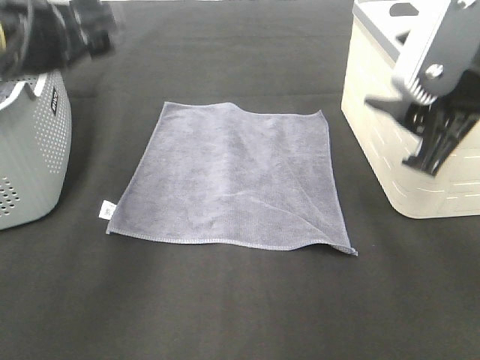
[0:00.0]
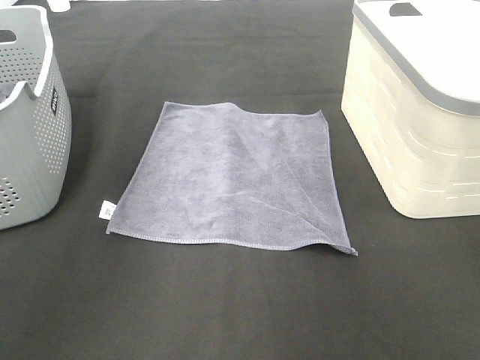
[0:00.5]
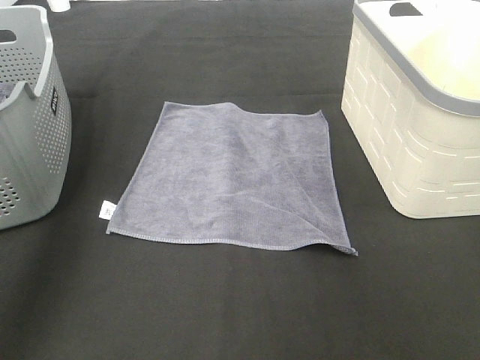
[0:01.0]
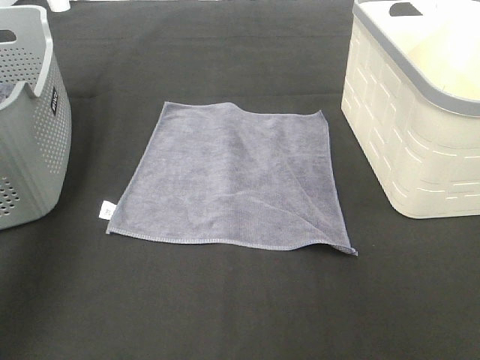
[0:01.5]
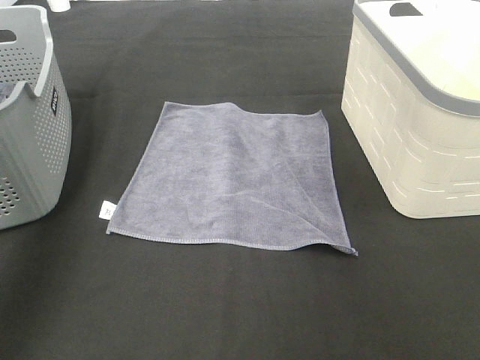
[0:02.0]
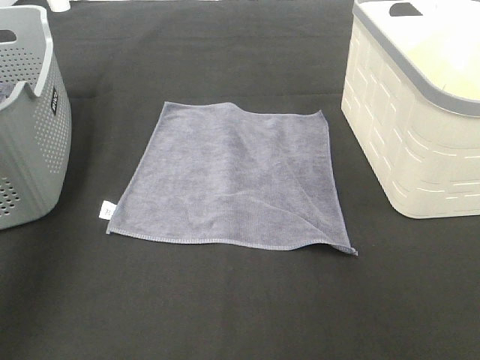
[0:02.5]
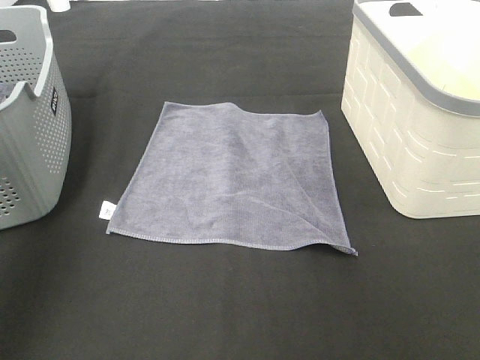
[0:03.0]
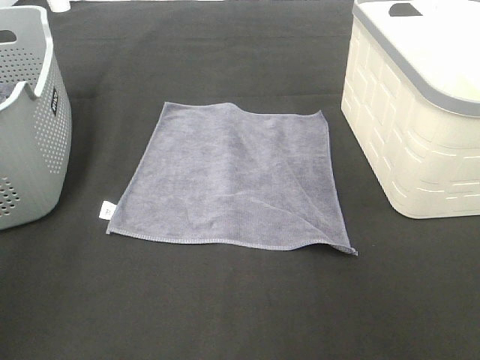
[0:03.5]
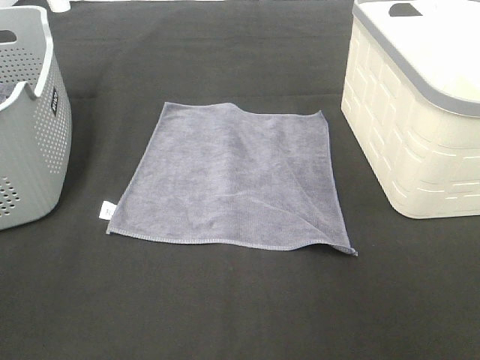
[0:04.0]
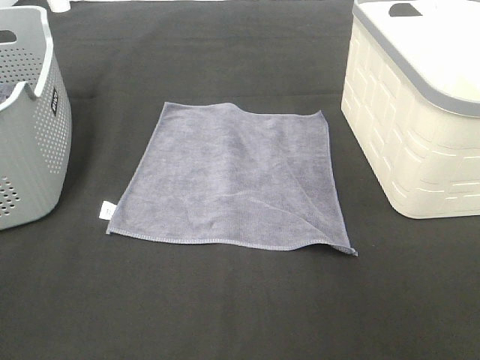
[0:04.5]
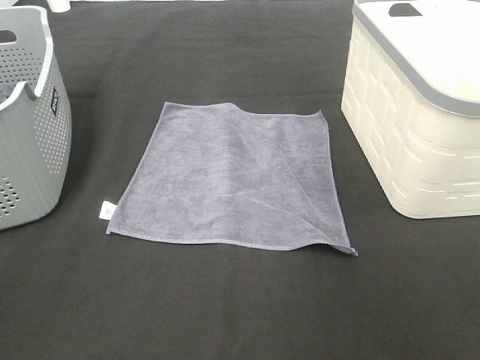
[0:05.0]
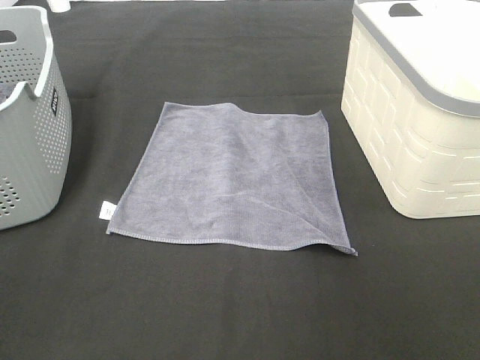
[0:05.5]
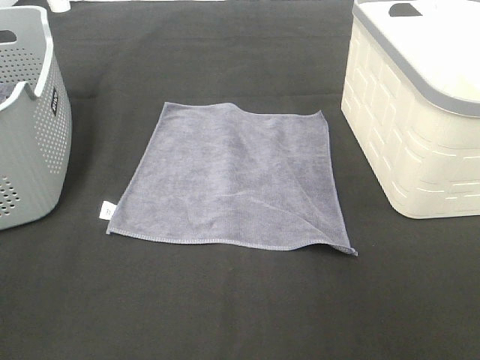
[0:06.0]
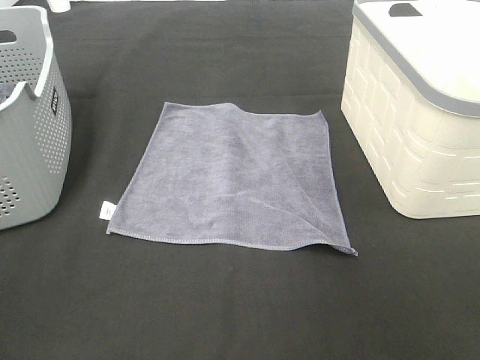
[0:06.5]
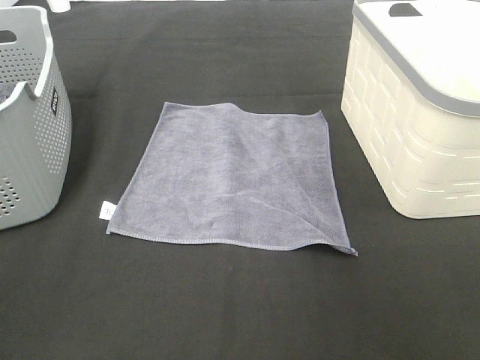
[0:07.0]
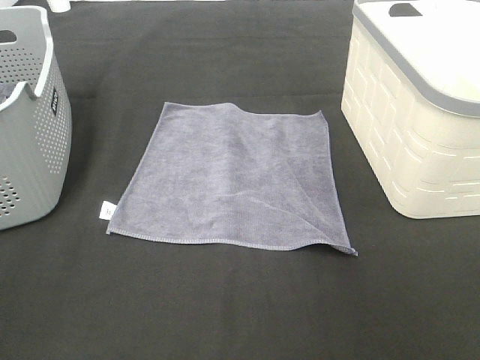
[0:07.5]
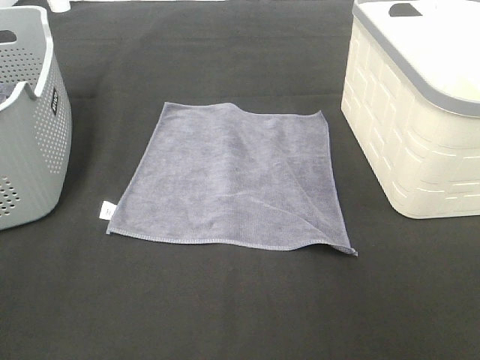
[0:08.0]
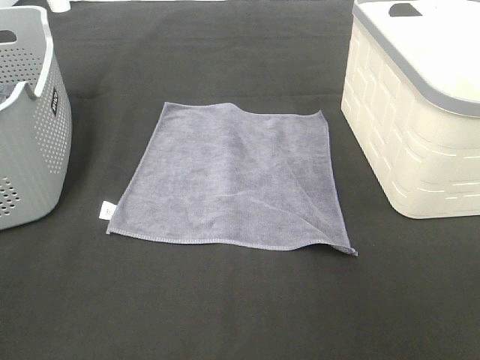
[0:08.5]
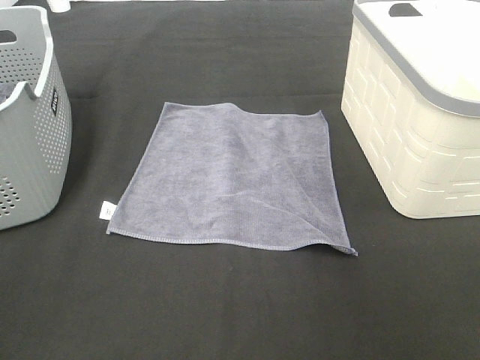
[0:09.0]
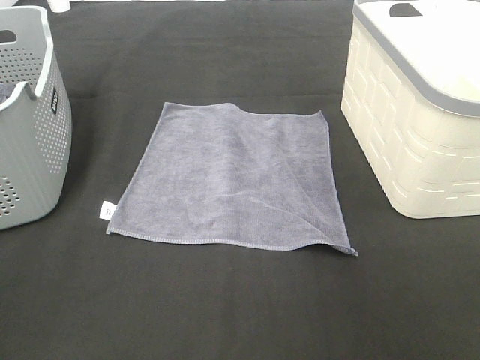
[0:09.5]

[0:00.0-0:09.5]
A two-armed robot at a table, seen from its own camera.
Task of the whole recording: Remove the towel and place it.
0:00.0 to 0:02.0: The left gripper shifts approximately 20 cm upward and to the left. The right gripper moves upward and forward, roughly 15 cm.
0:02.0 to 0:04.0: The left gripper shifts about 30 cm backward; the right gripper moves backward, to the right and downward, about 30 cm.
0:07.5 to 0:09.5: Both grippers stay put.

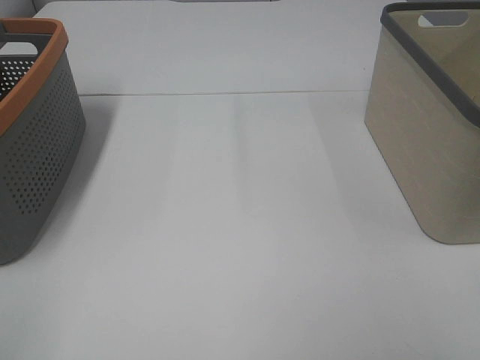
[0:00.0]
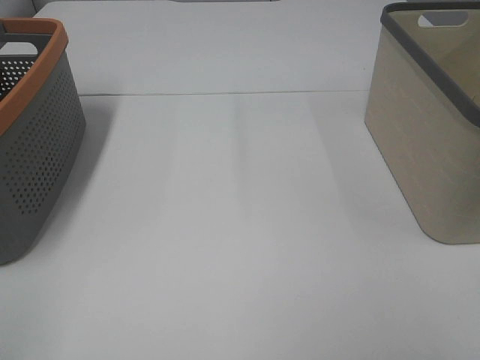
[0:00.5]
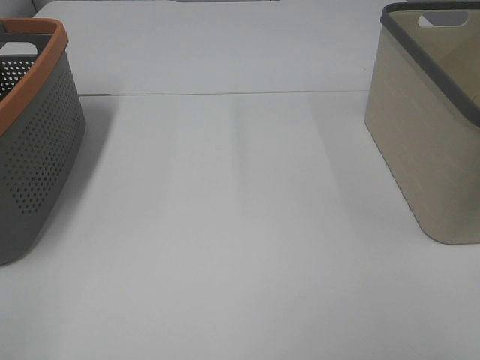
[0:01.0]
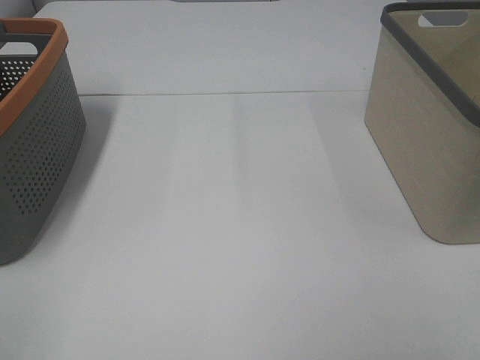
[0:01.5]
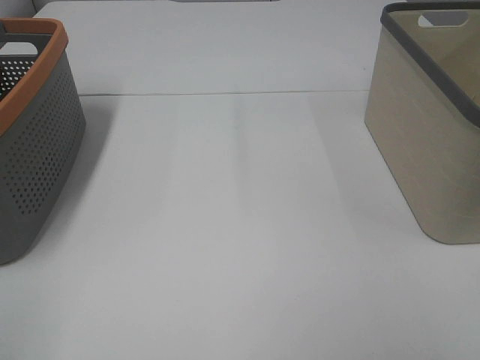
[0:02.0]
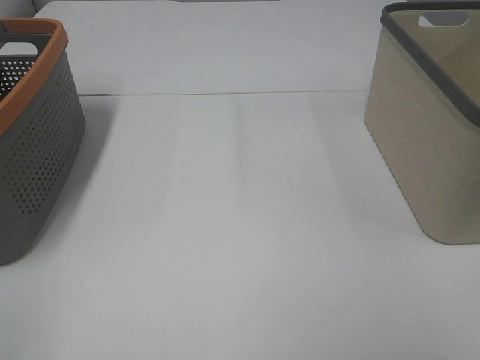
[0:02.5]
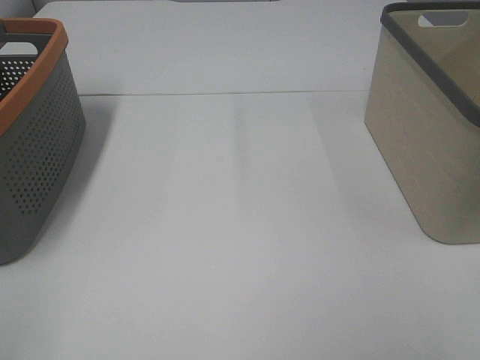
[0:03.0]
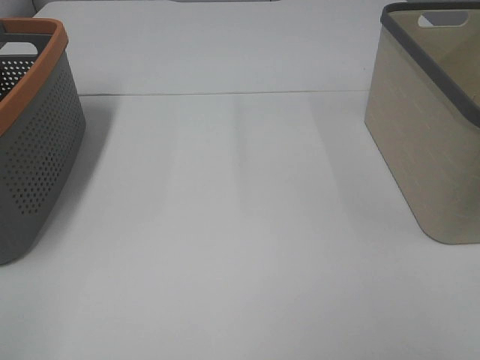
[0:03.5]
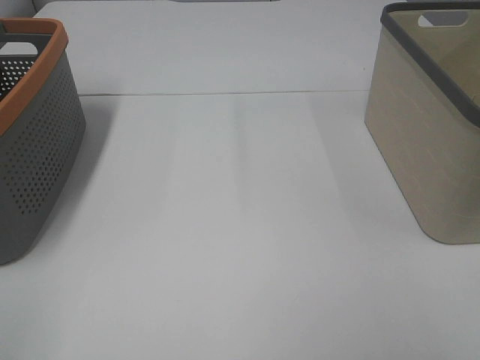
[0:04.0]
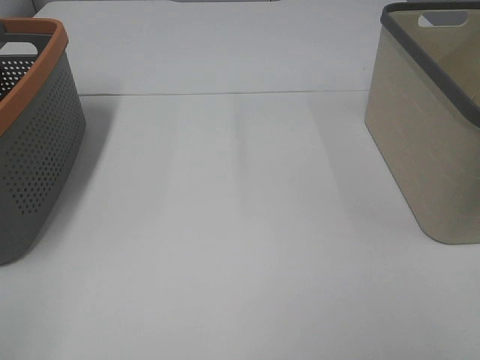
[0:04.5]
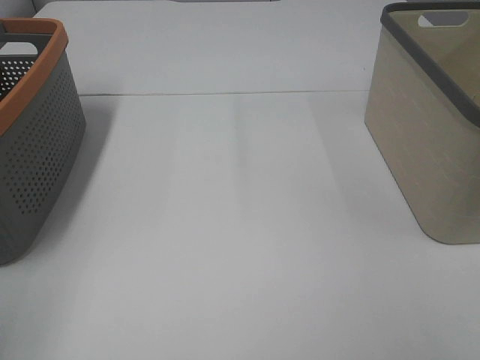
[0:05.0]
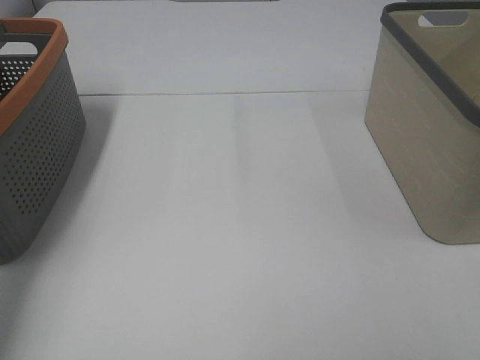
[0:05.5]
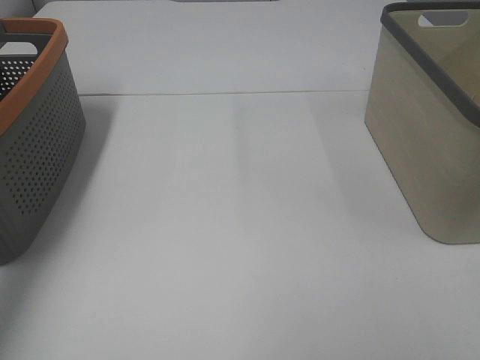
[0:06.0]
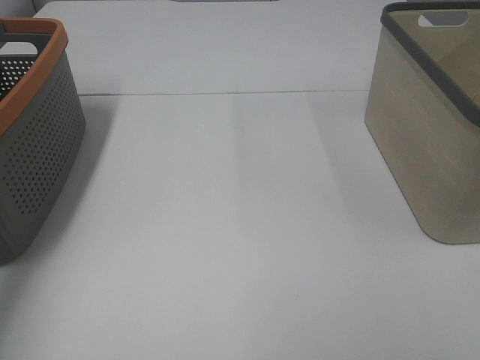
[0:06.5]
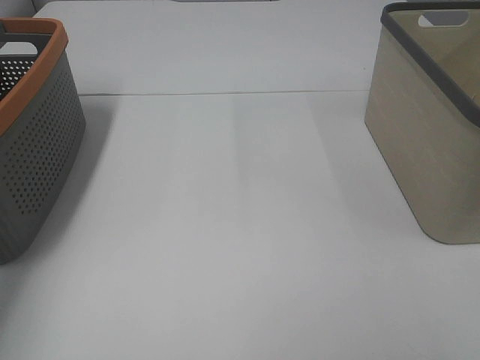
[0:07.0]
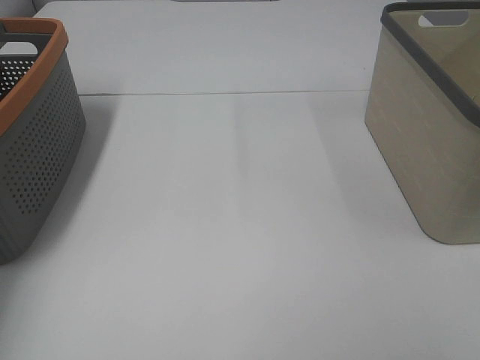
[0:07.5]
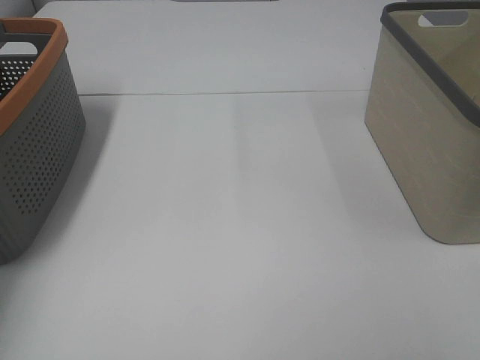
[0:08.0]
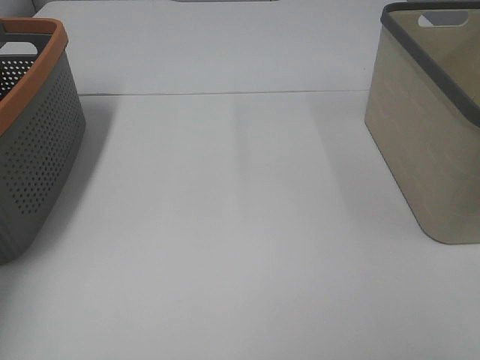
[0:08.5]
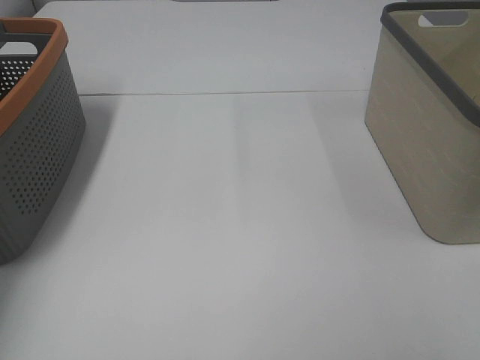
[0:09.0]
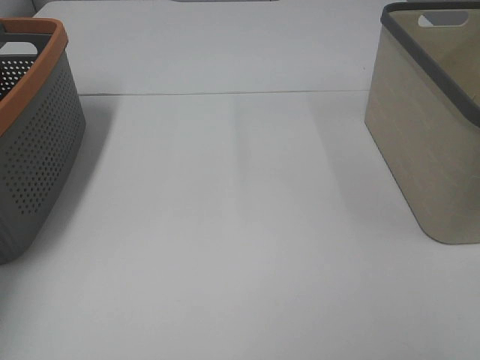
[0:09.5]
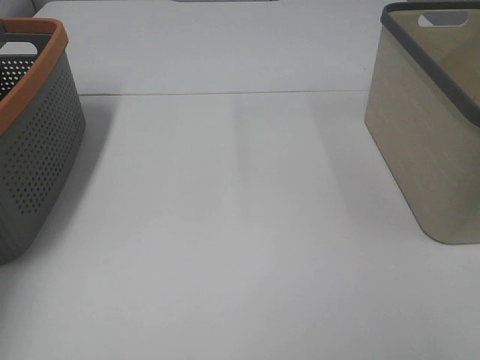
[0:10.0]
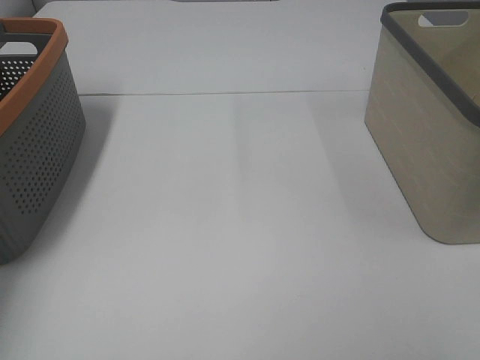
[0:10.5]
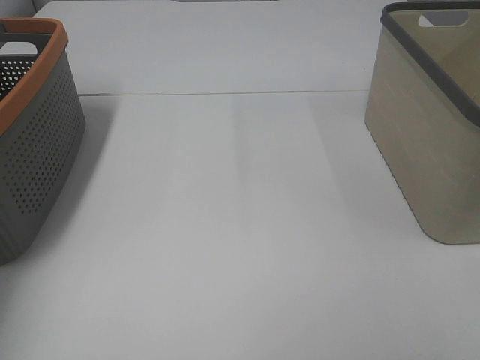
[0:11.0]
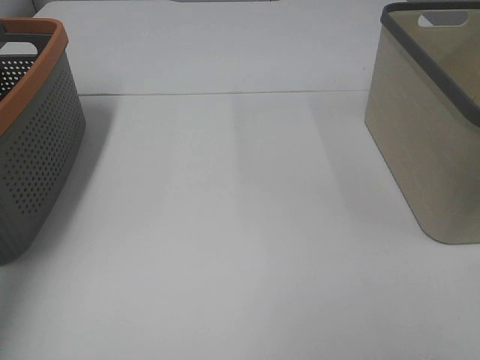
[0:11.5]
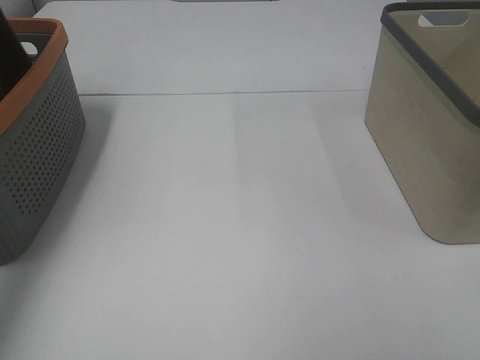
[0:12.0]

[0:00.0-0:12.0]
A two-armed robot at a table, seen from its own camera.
Task of the whole recording: Remove the towel and place it.
0:00.0 to 0:04.0: Both grippers stay put.
0:04.0 to 0:06.0: The left gripper heads forward, covering about 35 cm.
0:06.0 to 0:08.0: The left gripper heads downward, forward and to the left, covering some 15 cm.
0:10.0 to 0:12.0: The left gripper travels upward by about 25 cm, and closes up.

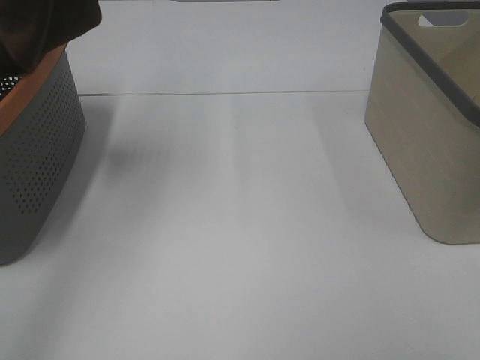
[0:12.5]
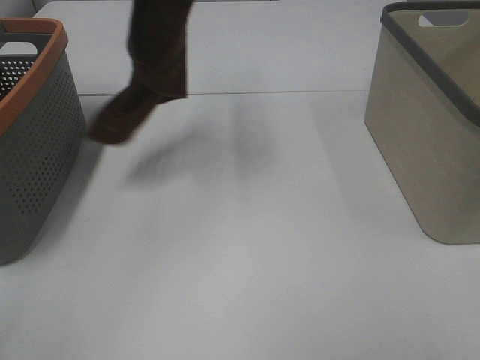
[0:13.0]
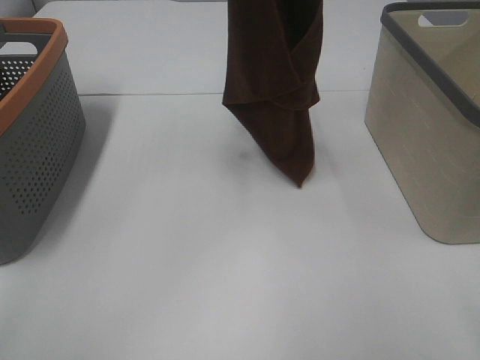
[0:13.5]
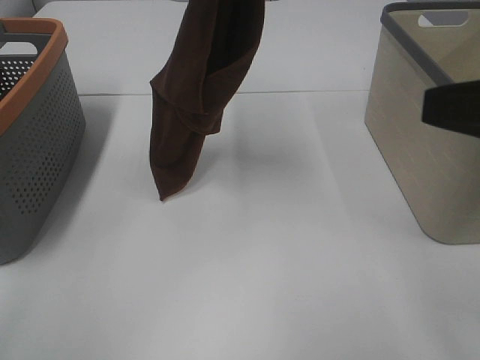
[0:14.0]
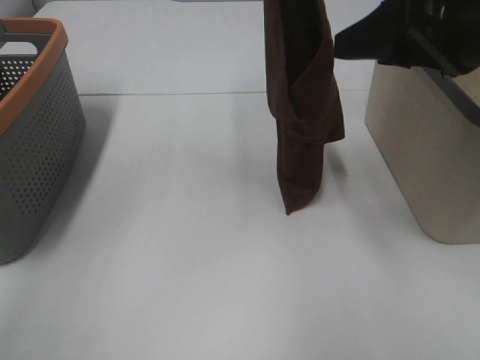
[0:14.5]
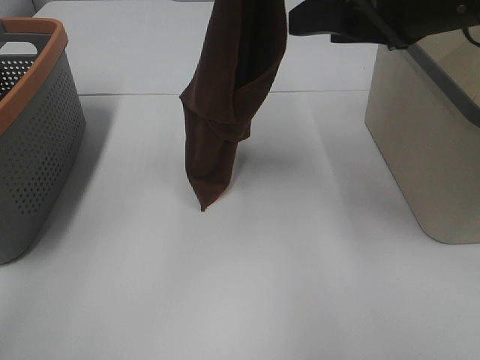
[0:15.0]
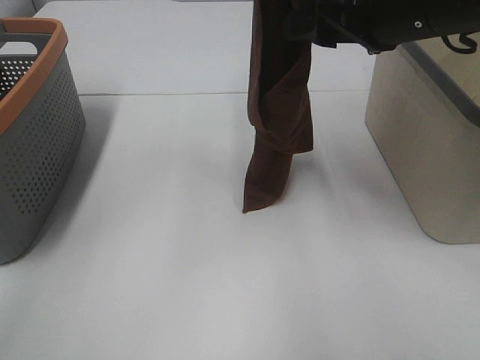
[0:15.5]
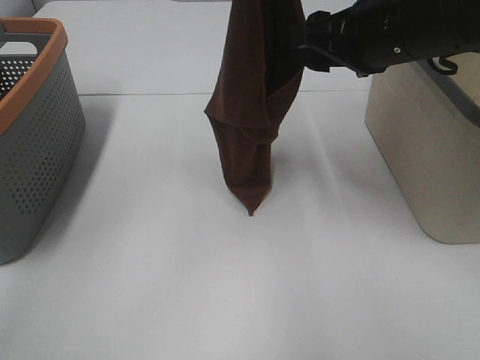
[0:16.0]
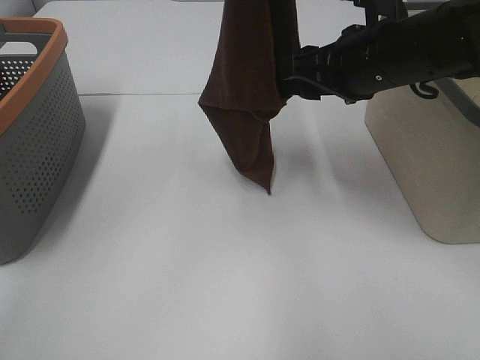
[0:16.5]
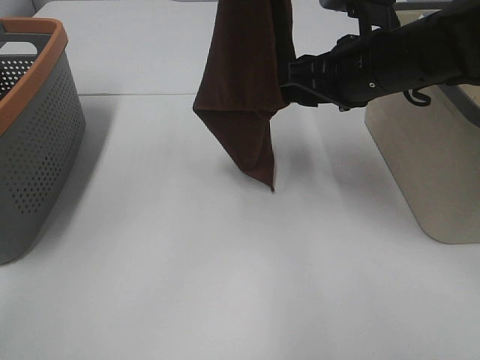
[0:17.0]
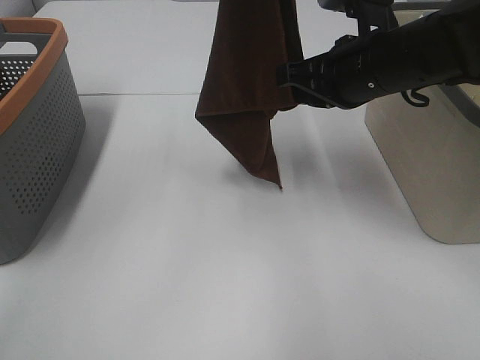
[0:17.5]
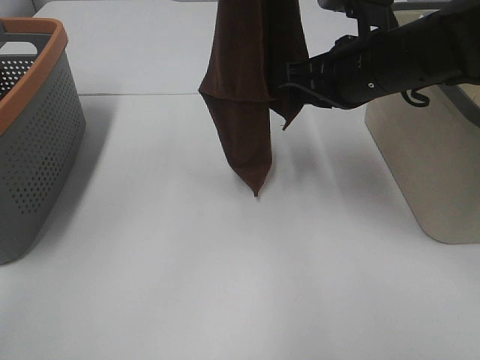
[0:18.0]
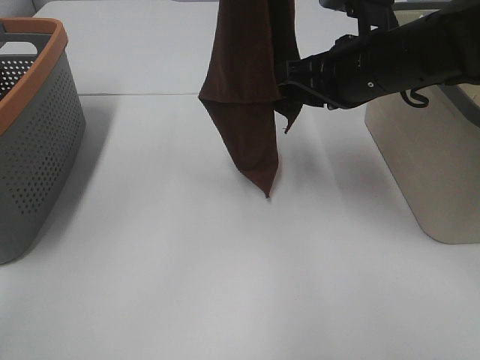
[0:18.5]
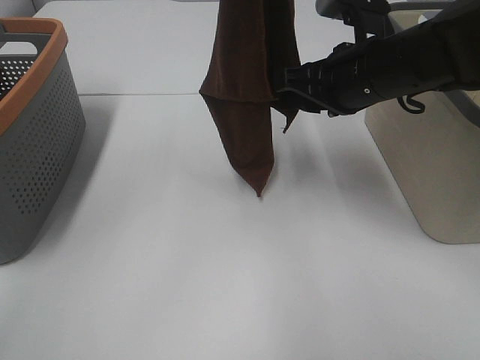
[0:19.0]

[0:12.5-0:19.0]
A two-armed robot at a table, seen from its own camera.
Task of the whole recording: Remove the towel and place it.
Step, 0:12.5 to 0:17.0: Right hand: grab a corner of the brown towel and straighten it.
0:12.5 to 0:14.5: The right gripper shifts approximately 25 cm forward; the left gripper is displaced to the right and downward by some 20 cm.
0:14.5 to 0:17.0: The right gripper shifts about 15 cm forward, downward and to the left.
0:17.0 to 0:19.0: The right gripper closes, then reopens.
